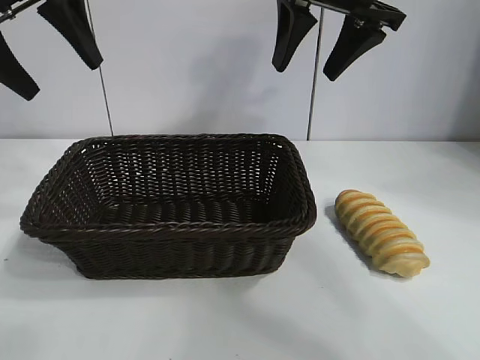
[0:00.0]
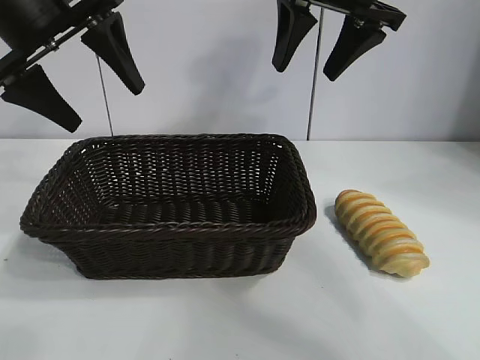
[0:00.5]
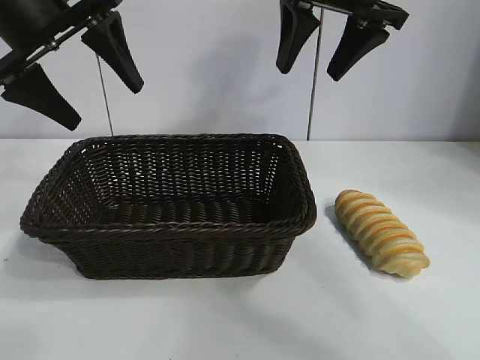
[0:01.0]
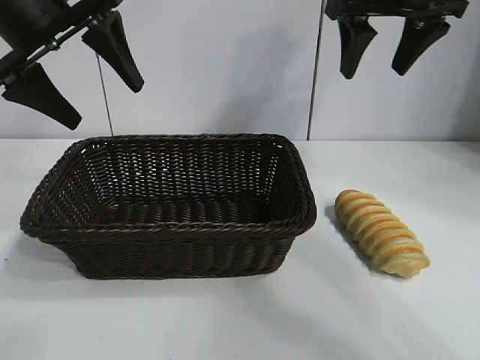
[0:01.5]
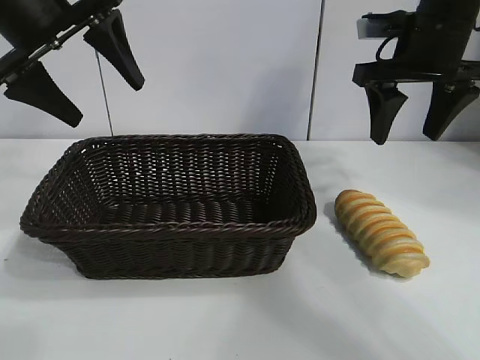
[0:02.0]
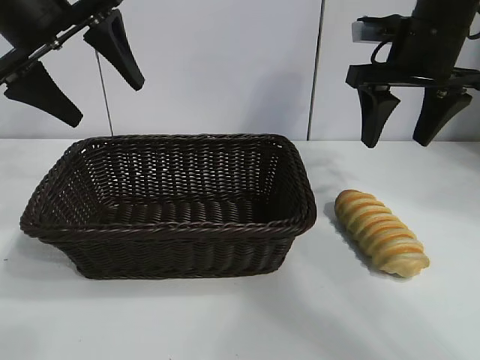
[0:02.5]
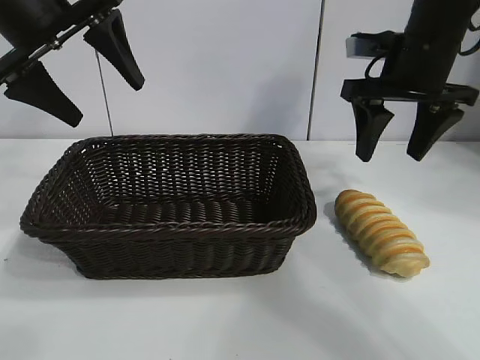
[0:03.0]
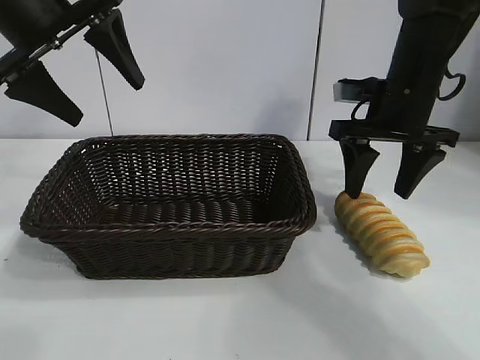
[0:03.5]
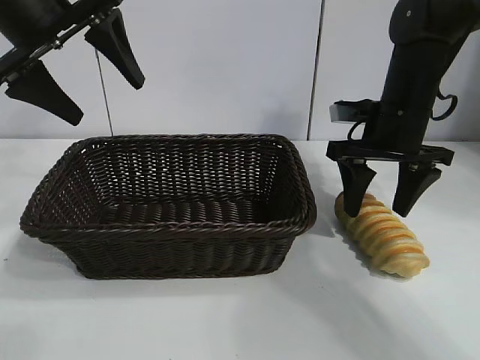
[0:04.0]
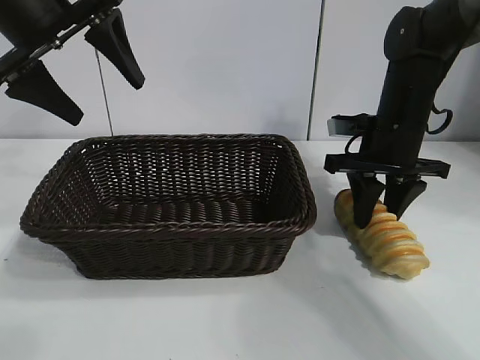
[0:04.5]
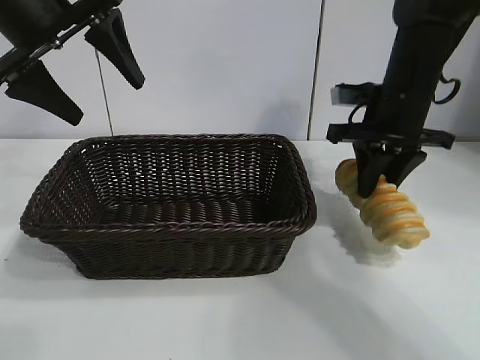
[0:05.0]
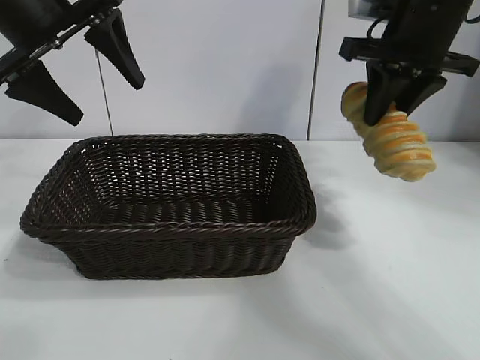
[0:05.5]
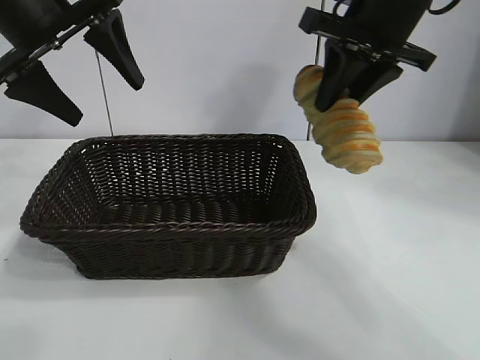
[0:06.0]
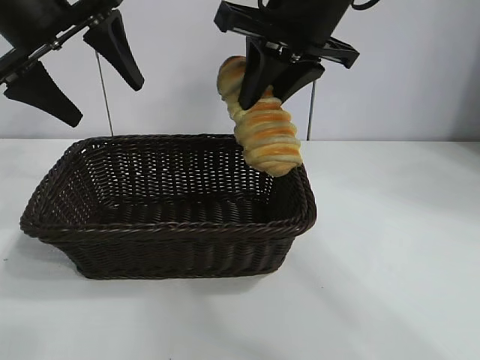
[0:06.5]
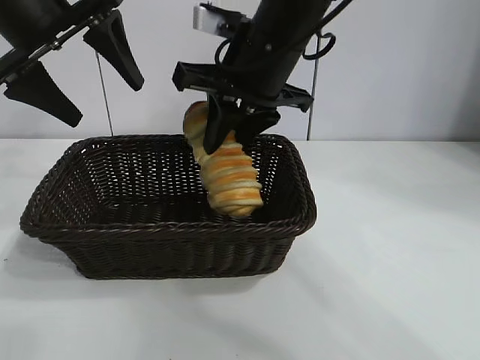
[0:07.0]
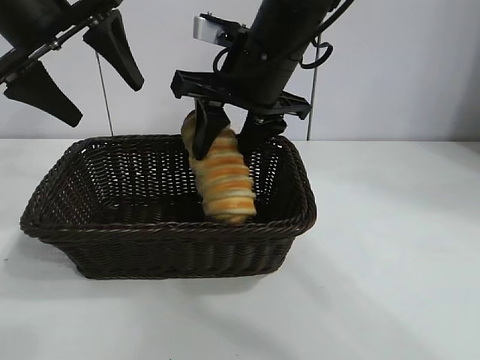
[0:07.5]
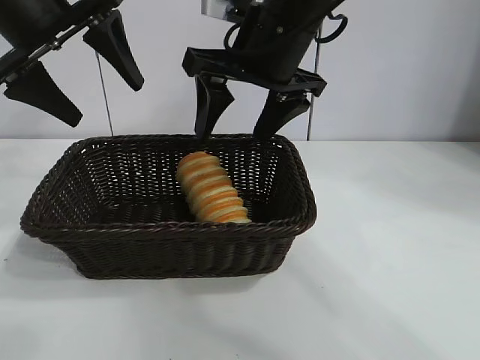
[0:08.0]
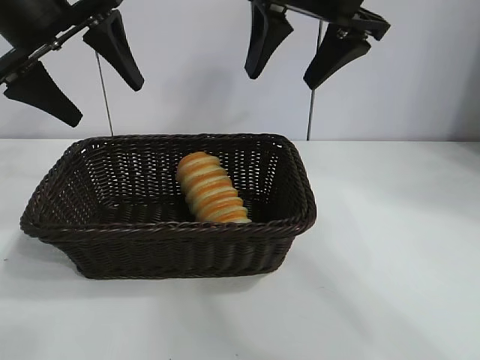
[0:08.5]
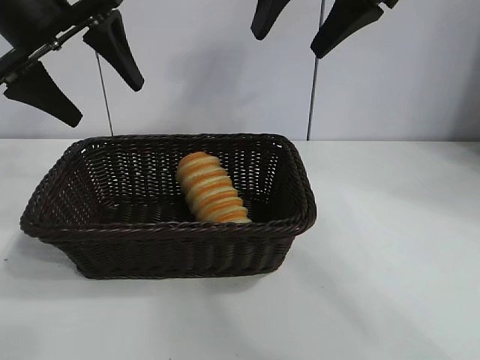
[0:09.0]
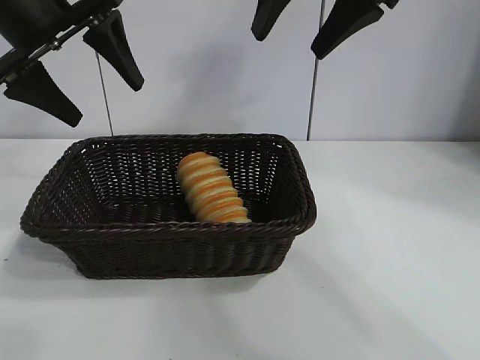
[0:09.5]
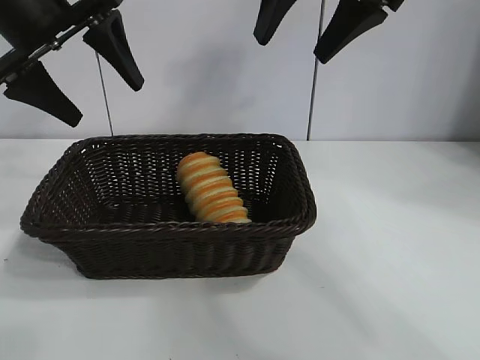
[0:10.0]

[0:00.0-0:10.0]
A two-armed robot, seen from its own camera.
Task of the whole recording: pick up the long bread and put it into the basket.
Step, 0:00.0 to 0:04.5: Grasp the long bread with right gripper.
Step, 0:05.0 to 0:07.5: Place the long bread in the basket with right gripper.
